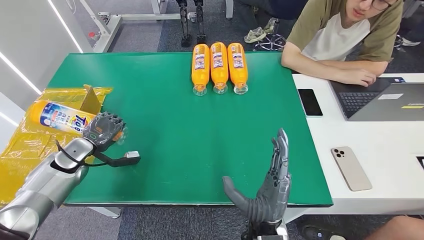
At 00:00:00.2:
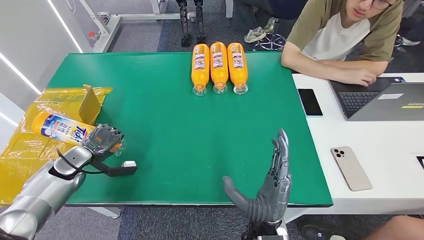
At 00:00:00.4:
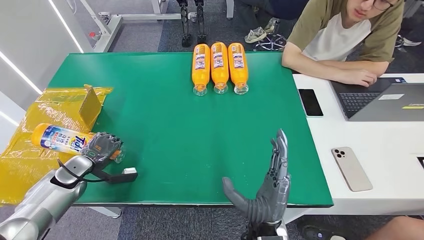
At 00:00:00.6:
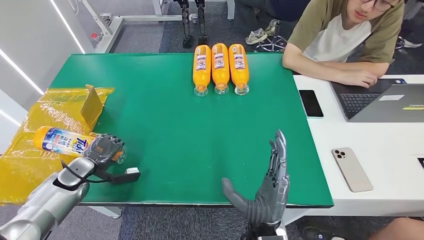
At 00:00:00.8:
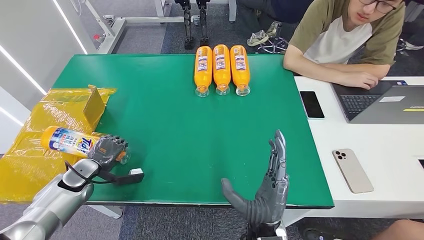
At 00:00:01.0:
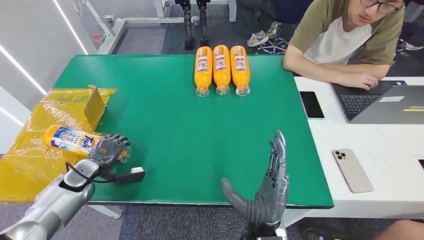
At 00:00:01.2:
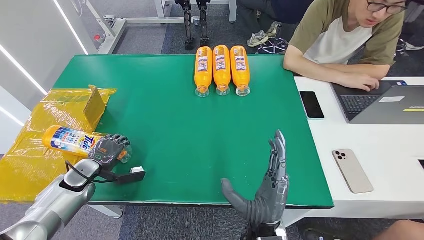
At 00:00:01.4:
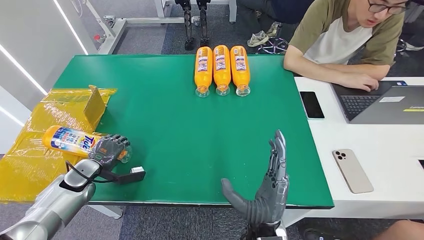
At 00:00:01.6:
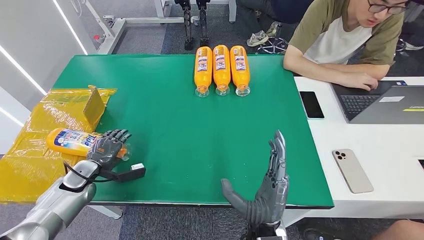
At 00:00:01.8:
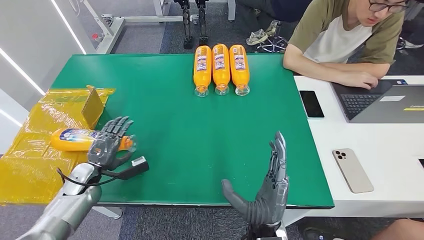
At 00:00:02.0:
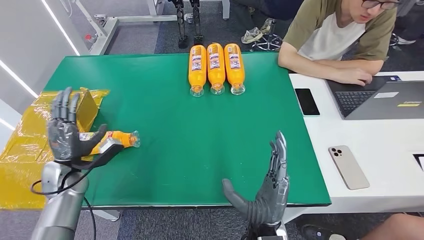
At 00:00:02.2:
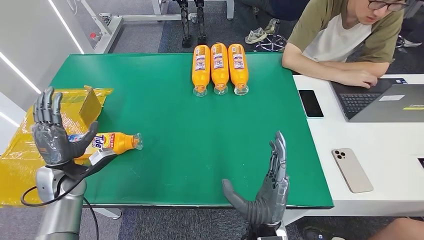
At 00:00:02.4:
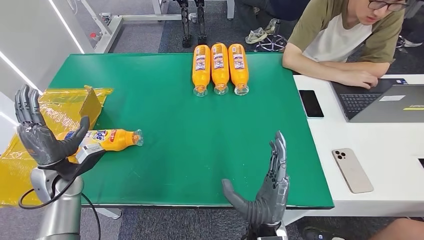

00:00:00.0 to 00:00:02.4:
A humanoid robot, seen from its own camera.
Step, 00:00:00.0 to 00:00:02.4: Turn the bottle to the front side.

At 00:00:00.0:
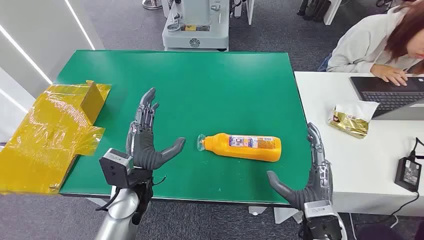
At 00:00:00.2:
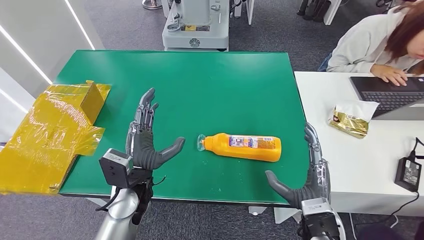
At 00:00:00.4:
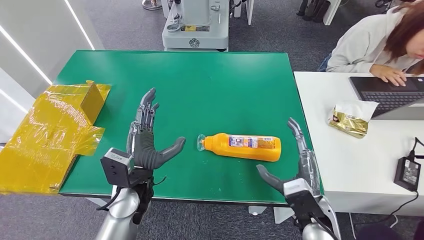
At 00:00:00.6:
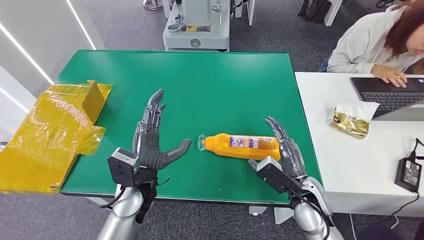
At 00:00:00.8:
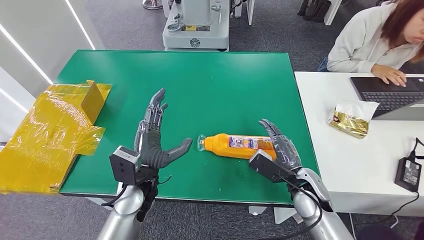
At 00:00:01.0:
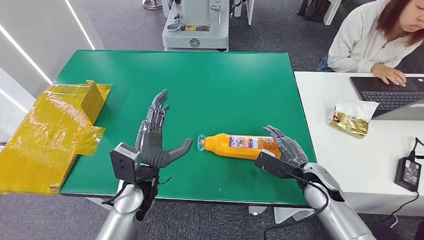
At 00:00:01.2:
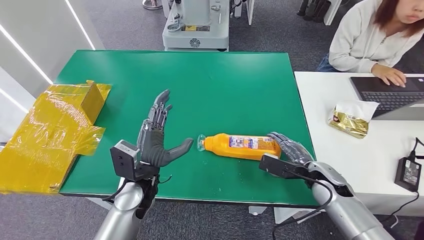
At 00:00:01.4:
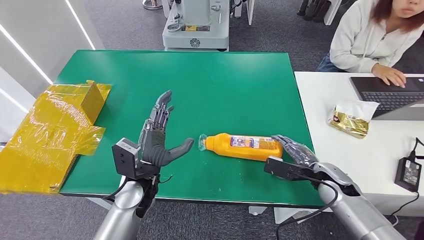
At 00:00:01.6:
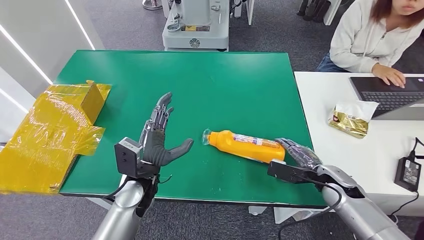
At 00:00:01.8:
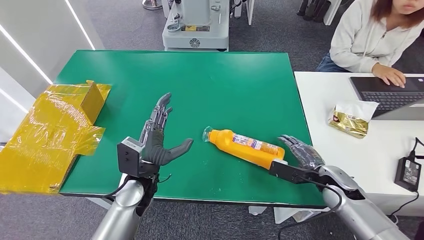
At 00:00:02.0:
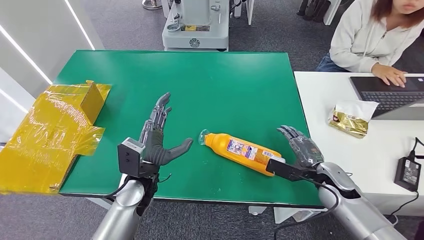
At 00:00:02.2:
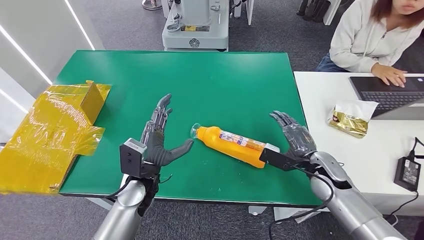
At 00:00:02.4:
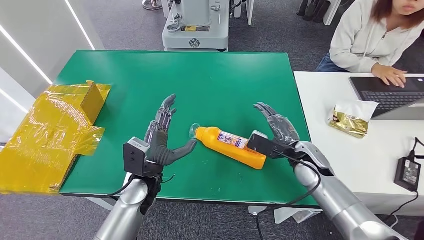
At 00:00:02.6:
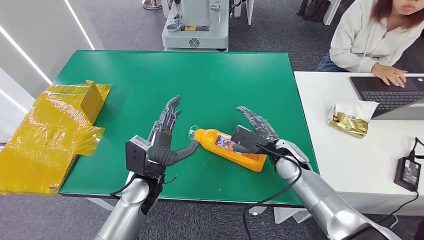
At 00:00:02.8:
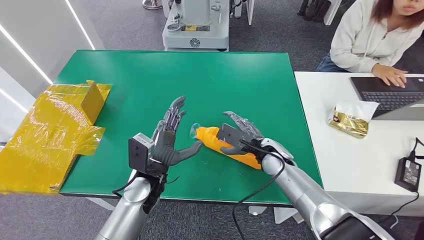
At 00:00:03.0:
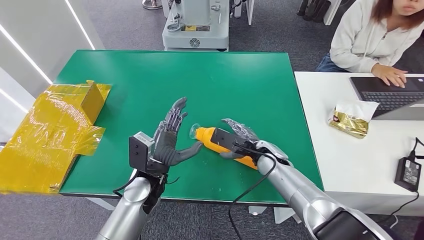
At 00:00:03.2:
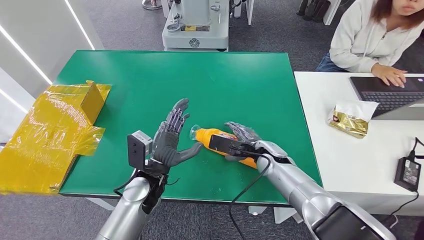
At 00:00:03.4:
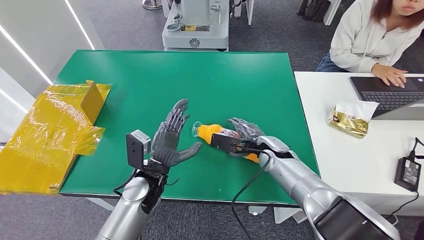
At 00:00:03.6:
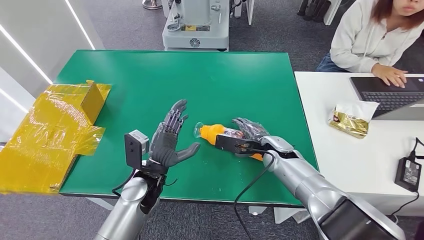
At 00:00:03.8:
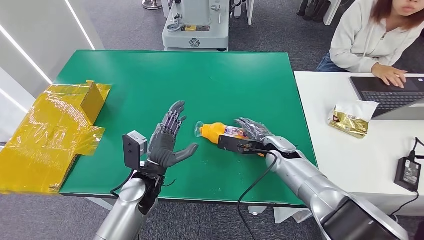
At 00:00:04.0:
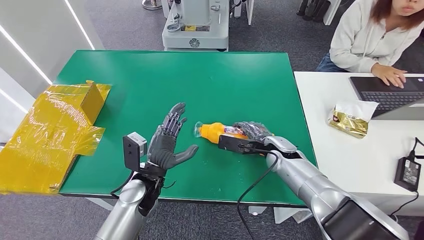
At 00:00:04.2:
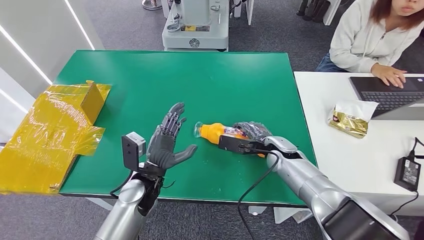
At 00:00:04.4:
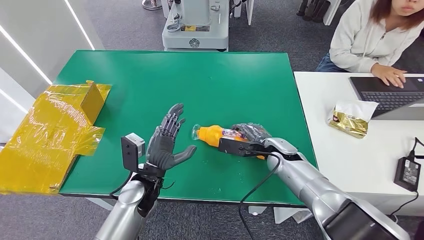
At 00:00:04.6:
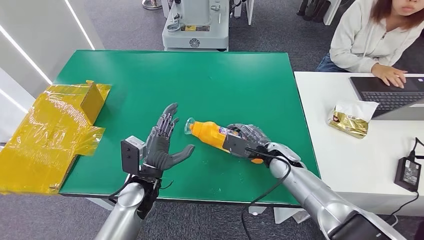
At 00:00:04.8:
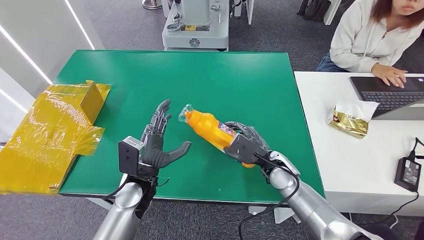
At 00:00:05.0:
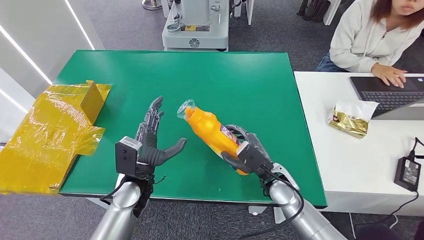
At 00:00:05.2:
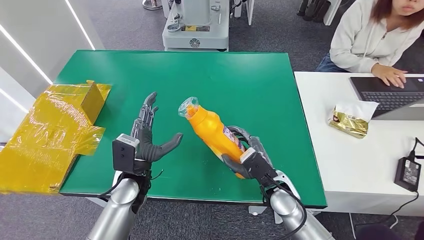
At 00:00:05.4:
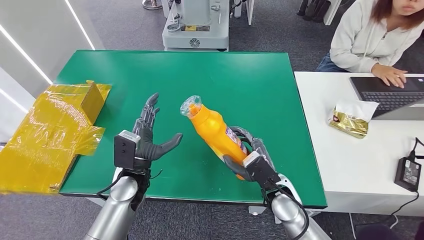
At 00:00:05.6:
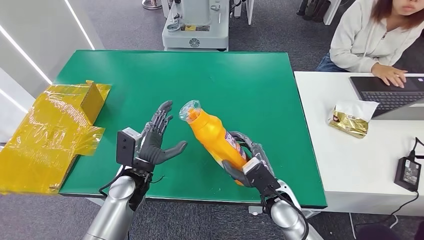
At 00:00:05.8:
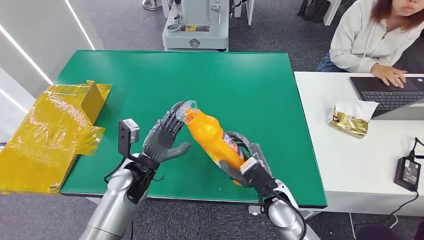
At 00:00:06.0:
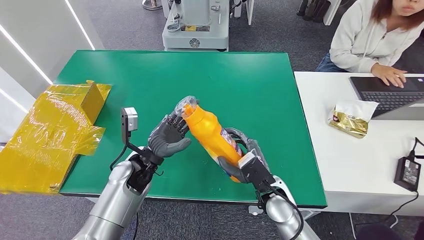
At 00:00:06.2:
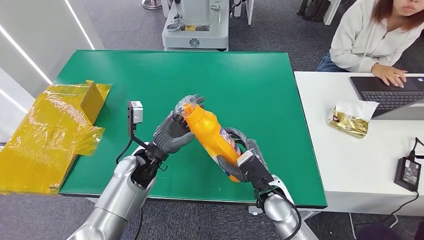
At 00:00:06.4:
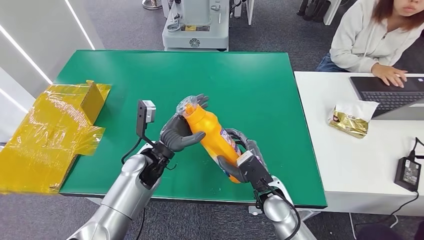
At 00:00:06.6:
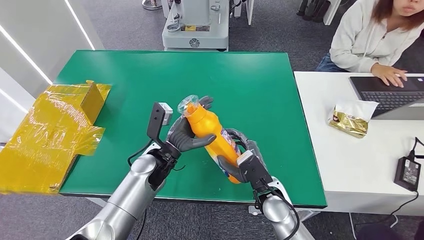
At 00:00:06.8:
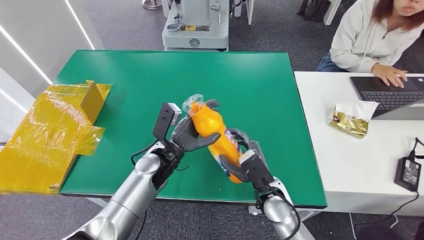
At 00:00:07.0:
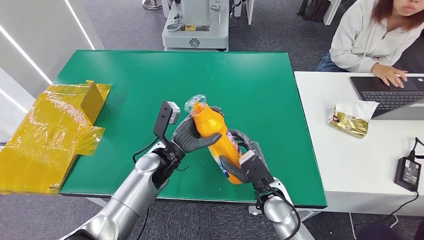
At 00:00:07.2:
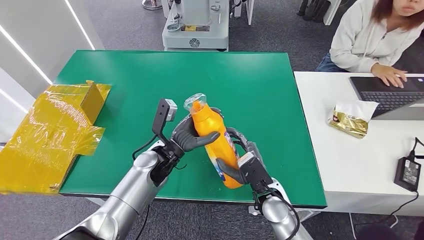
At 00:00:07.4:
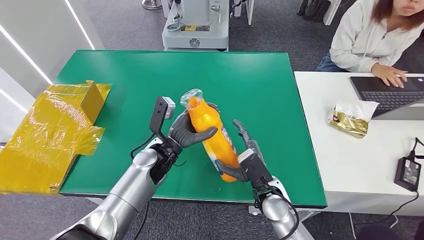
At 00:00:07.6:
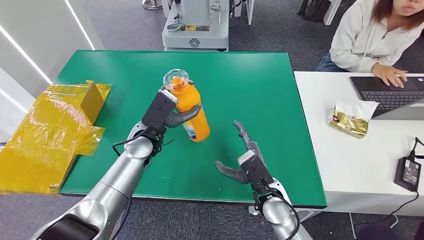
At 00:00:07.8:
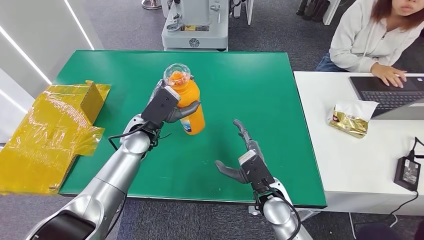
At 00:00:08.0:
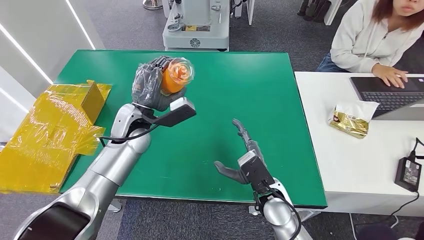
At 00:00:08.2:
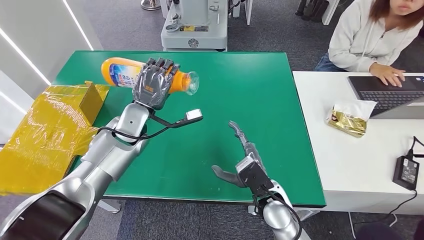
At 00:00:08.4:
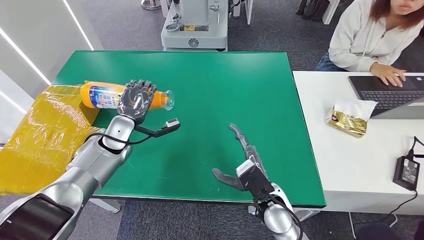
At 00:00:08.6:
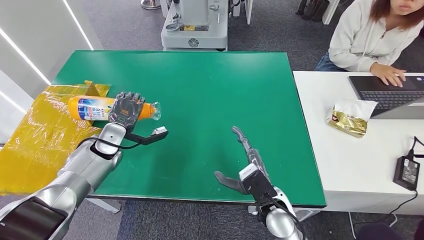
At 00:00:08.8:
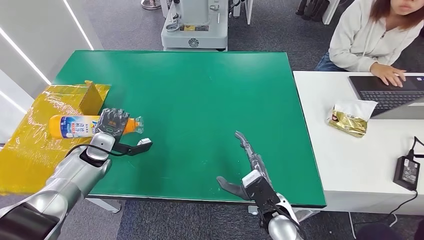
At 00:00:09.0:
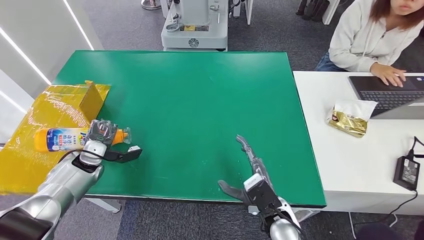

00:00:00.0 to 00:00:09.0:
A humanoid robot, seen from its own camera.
Step, 00:00:00.0 to 00:00:05.4: Pick up the bottle from the table.
Step, 00:00:06.0 to 00:00:09.0: Turn the bottle to the front side.
00:00:01.6 to 00:00:03.0: The right hand heads to the left and forward, covering roughly 20 cm.
00:00:04.4 to 00:00:06.0: The left hand changes place by about 5 cm. The right hand goes approximately 10 cm backward.
00:00:06.0 to 00:00:07.6: The left hand shifts approximately 5 cm forward.
